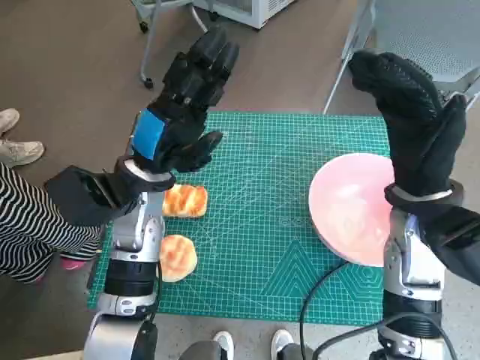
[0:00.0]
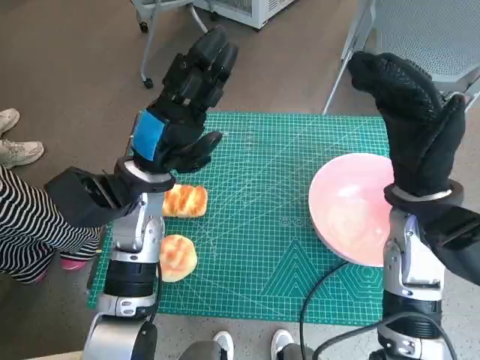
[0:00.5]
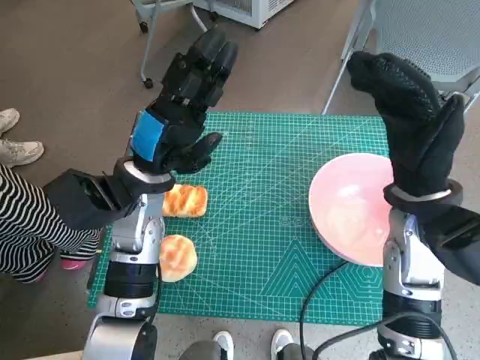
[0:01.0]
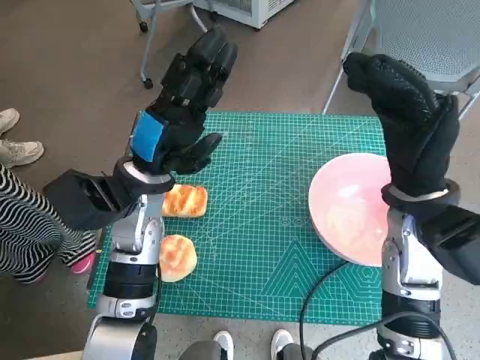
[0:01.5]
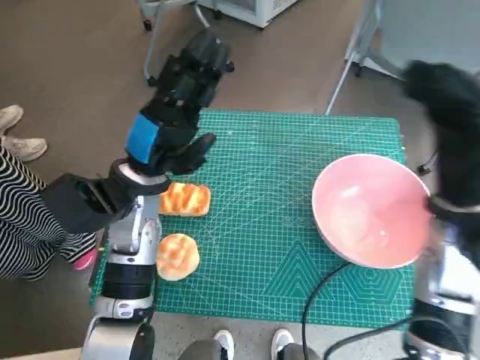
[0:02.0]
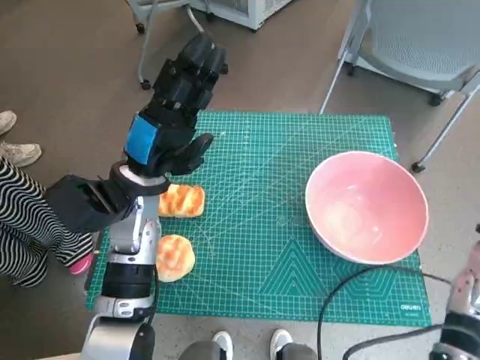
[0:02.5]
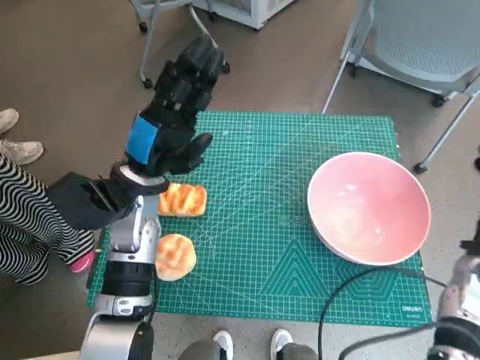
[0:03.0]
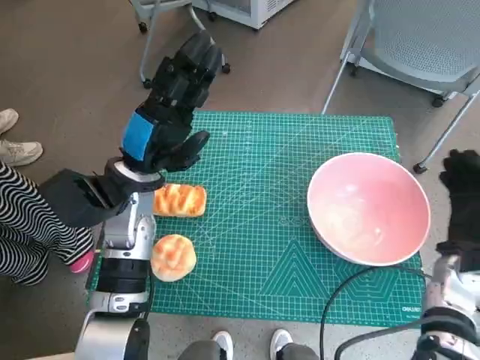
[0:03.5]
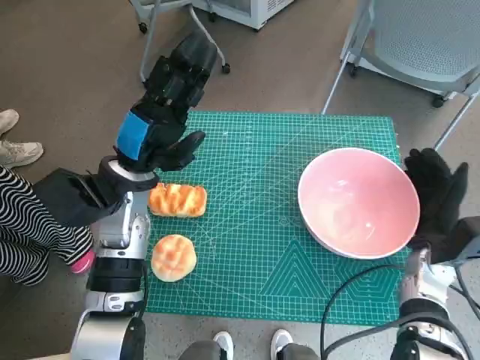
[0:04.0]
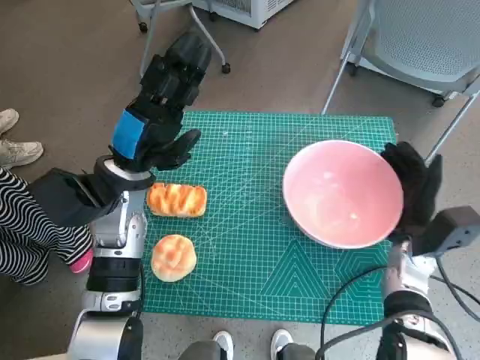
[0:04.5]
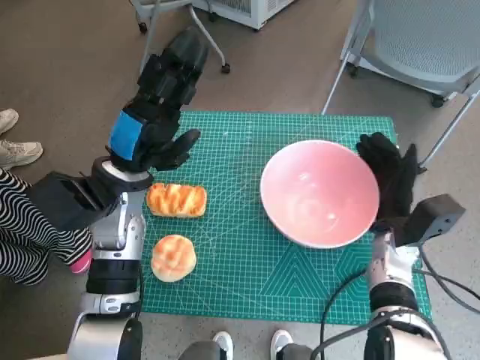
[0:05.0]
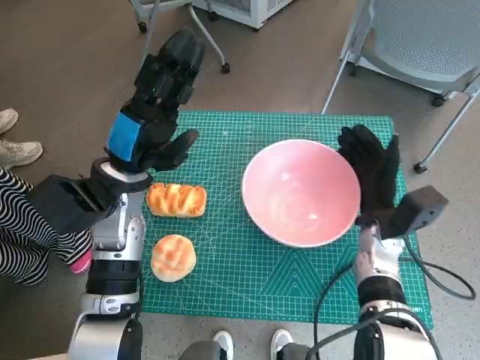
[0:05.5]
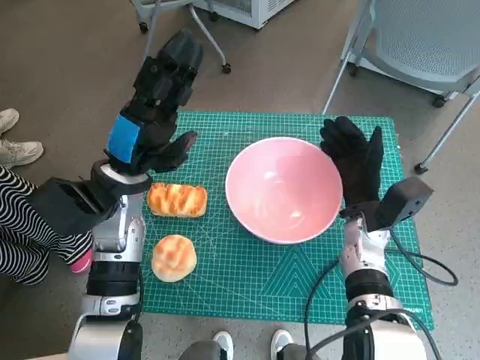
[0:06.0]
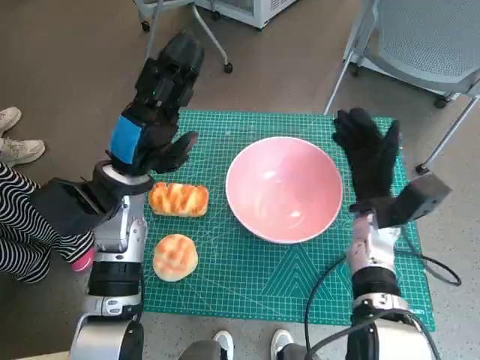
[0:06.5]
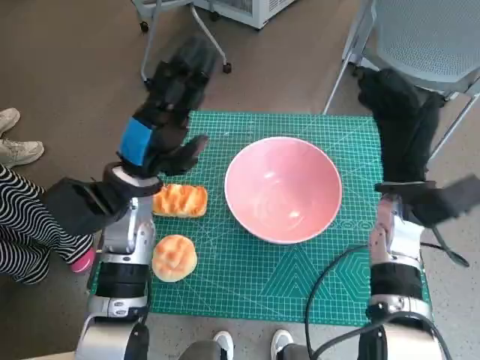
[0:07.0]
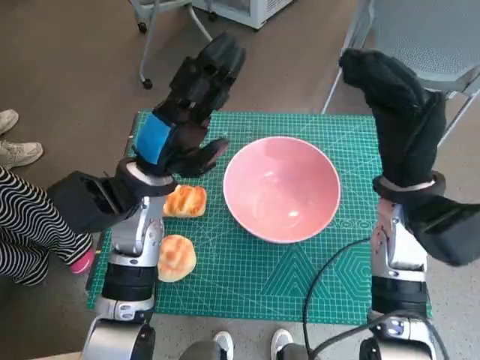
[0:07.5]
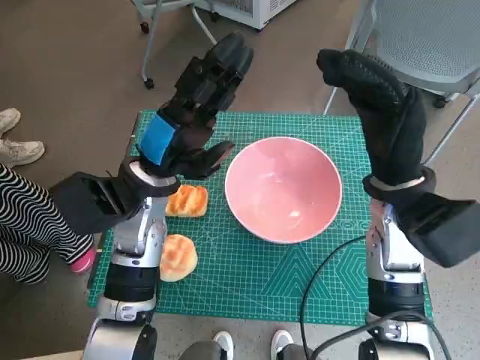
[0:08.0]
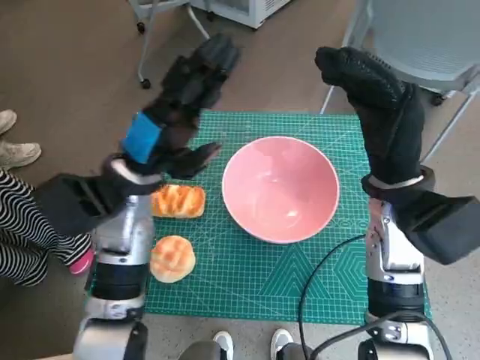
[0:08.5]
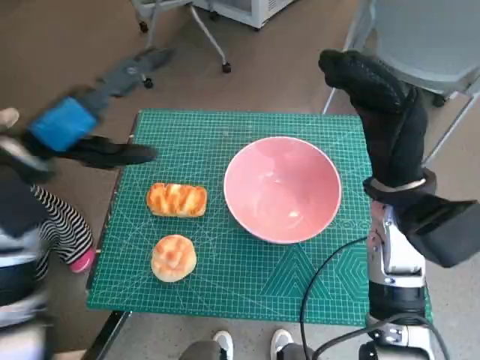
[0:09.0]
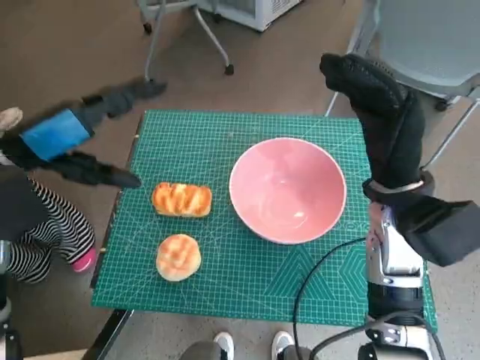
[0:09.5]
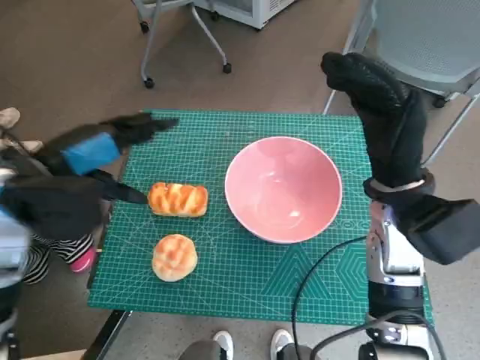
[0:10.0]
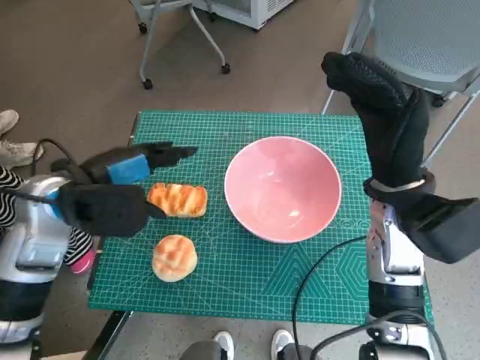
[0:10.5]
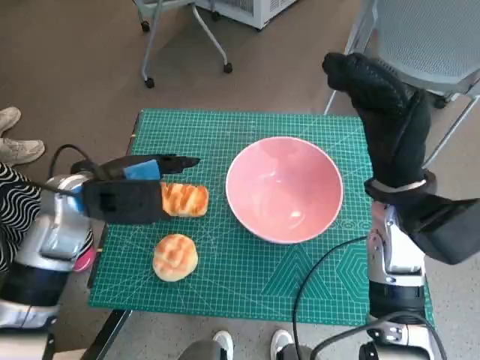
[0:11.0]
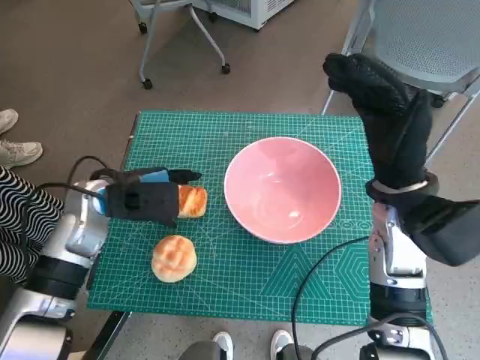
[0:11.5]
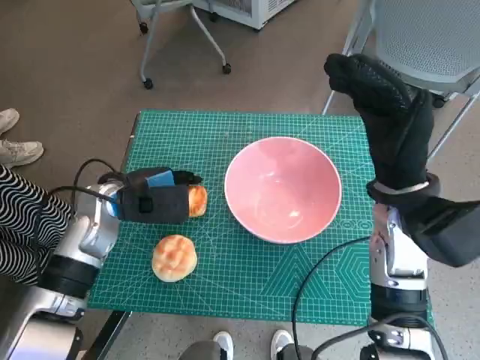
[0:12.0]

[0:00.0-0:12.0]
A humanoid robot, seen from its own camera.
Task of the whole recording: Push the bowl into the center of the table and put the bread into the bowl.
Step, 0:00.0 to 0:07.0: Move the pink bowl to the center of table with right hand.
0:02.0 to 0:04.0: The right hand travels downward by roughly 15 cm.
0:04.0 to 0:06.0: The right hand heads to the left, covering approximately 10 cm.
0:06.0 to 0:08.0: The right hand shifts some 15 cm upward.
0:08.0 to 0:10.0: The left hand is displaced to the left and upward by about 15 cm.
0:10.0 to 0:12.0: The left hand moves downward and forward, about 15 cm.

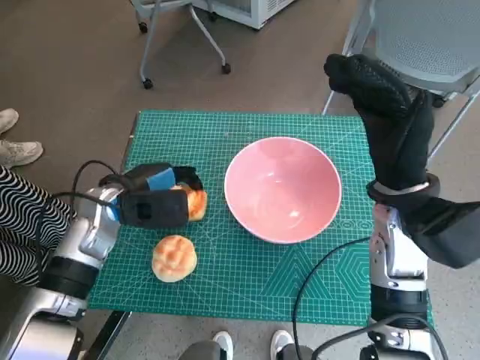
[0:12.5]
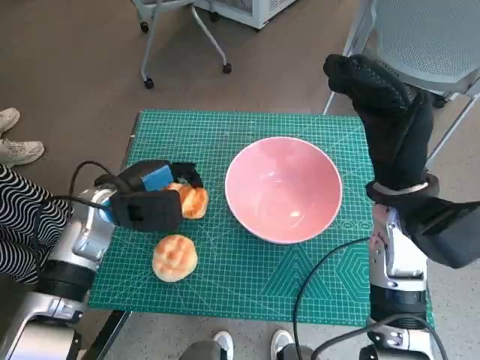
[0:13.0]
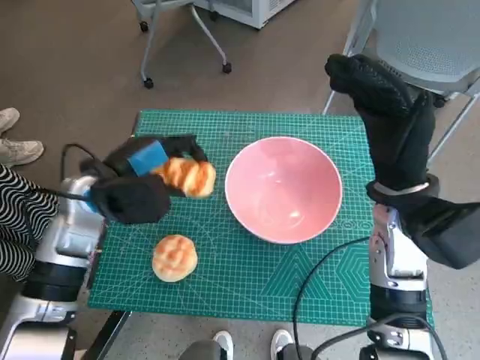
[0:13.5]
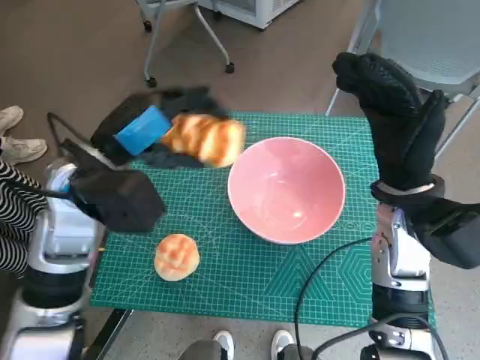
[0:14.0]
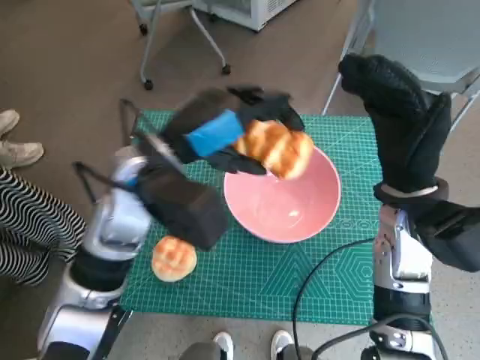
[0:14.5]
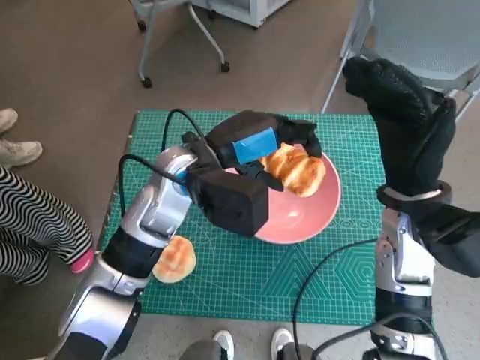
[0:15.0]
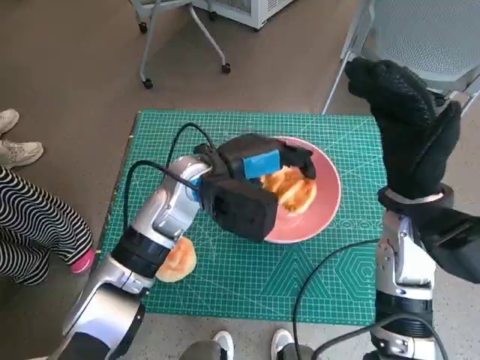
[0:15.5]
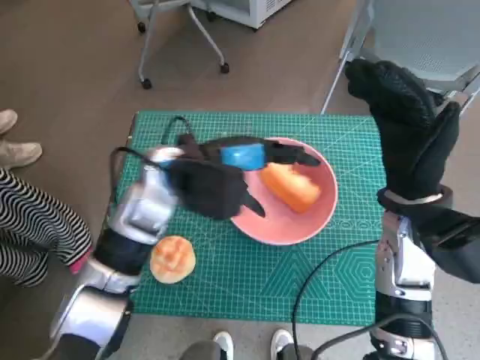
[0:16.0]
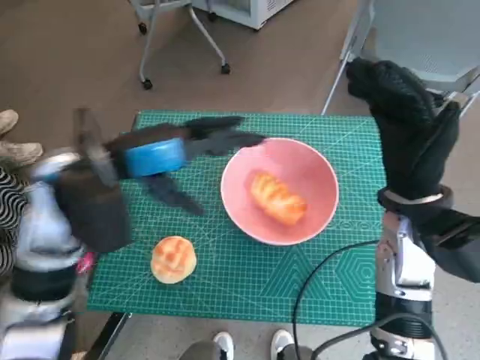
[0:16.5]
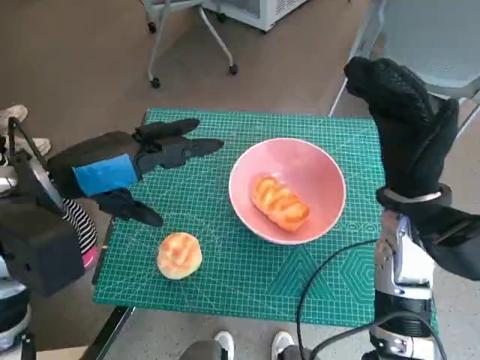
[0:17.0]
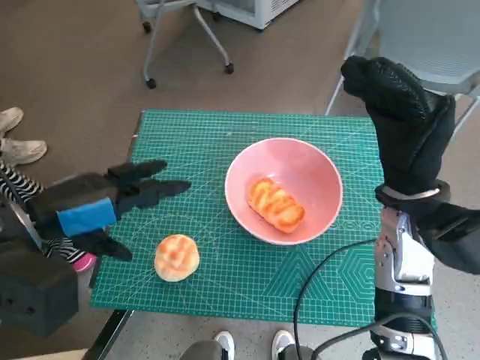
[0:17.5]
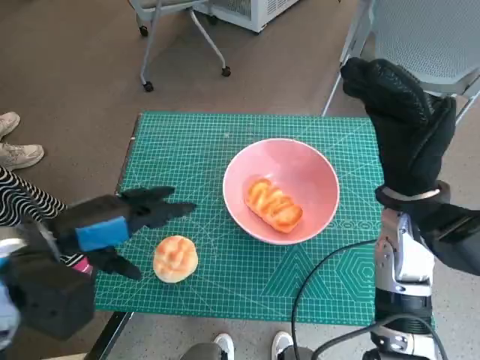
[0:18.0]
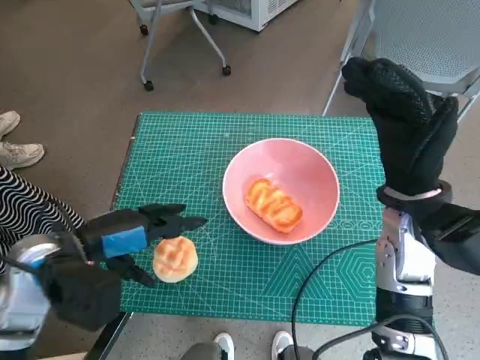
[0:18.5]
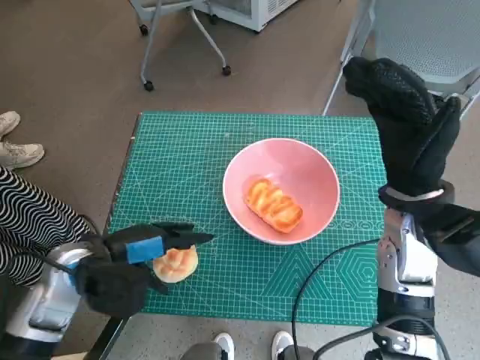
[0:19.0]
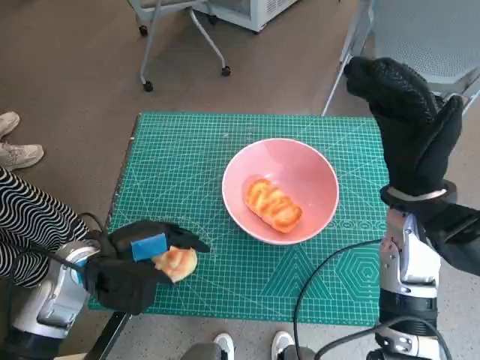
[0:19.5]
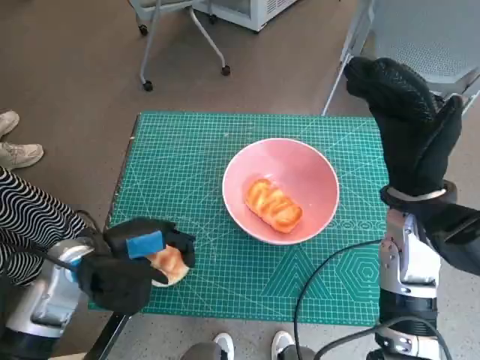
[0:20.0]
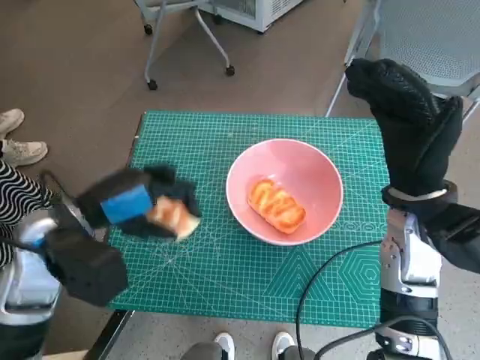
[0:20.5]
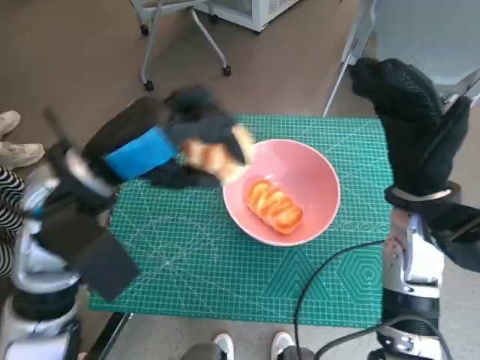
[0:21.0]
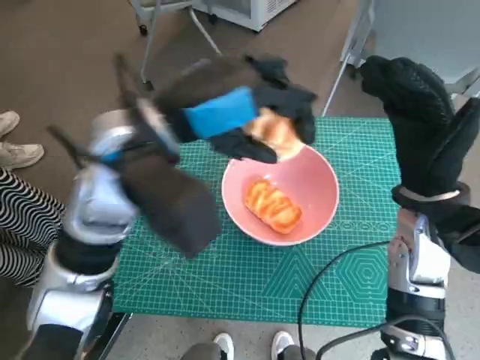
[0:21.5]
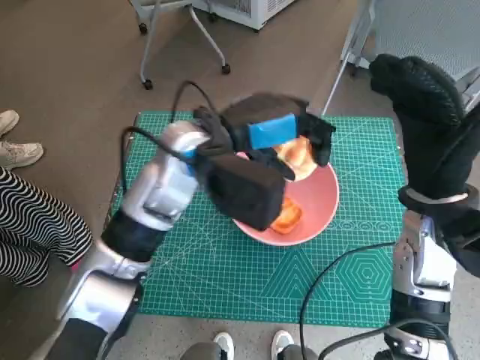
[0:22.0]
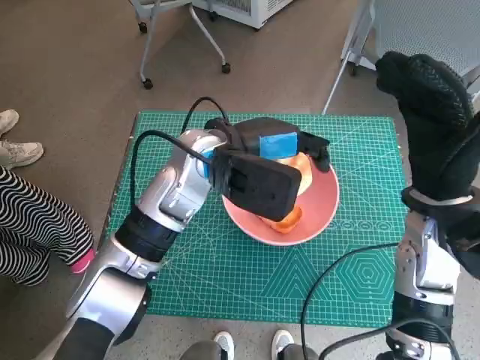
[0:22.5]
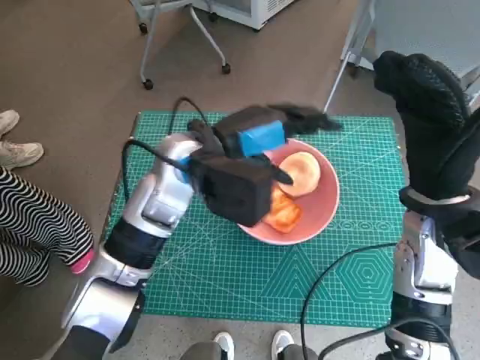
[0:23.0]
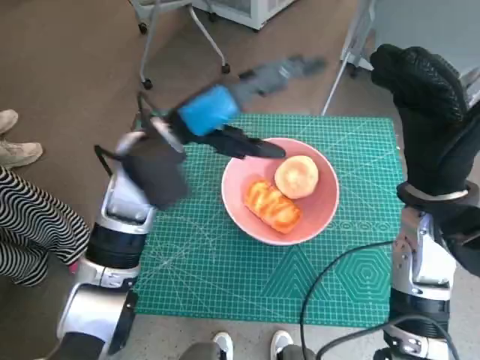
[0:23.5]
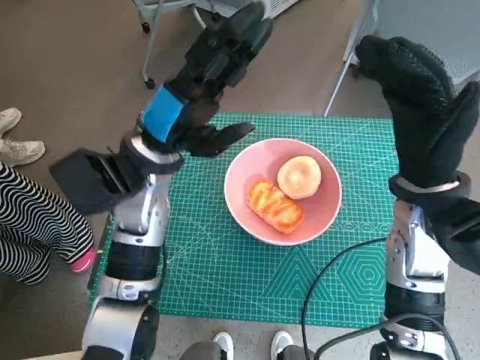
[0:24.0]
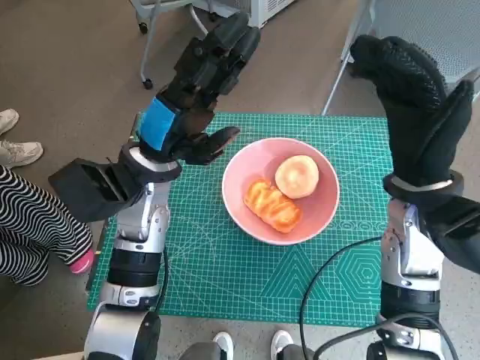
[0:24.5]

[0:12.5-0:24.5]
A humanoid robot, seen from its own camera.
Task of the whole recording: Push the bowl into the center of the table and put the bread into the bowl.
Step, 0:13.0 to 0:16.5: Place the long bread in pink bowl with left hand.
Step, 0:17.0 to 0:19.5: Grasp the round bread with left hand.
Step, 0:20.0 to 0:24.0: Place the round bread in pink bowl with left hand.
0:12.5 to 0:14.5: The left hand moves upward and to the right, some 15 cm.
0:14.5 to 0:16.5: The left hand moves to the left, some 5 cm.
0:16.5 to 0:18.5: The left hand is displaced downward, backward and to the left by approximately 10 cm.
0:20.5 to 0:22.5: The left hand goes some 20 cm to the right and forward.
0:22.5 to 0:24.5: The left hand goes roughly 10 cm to the left.

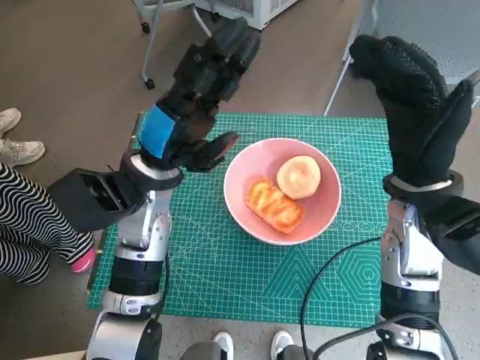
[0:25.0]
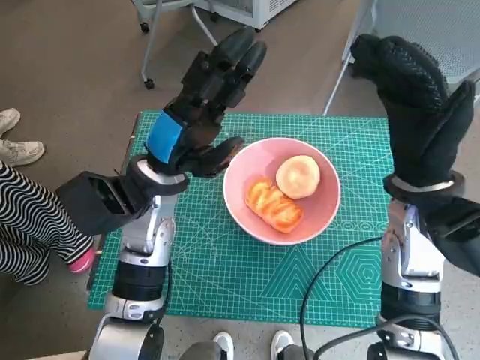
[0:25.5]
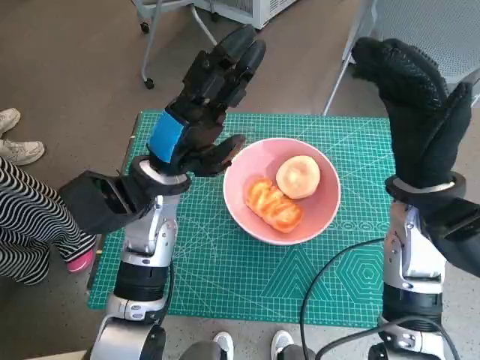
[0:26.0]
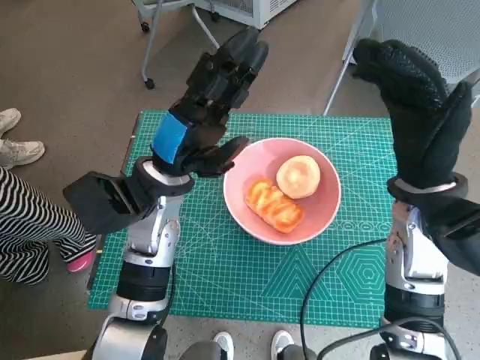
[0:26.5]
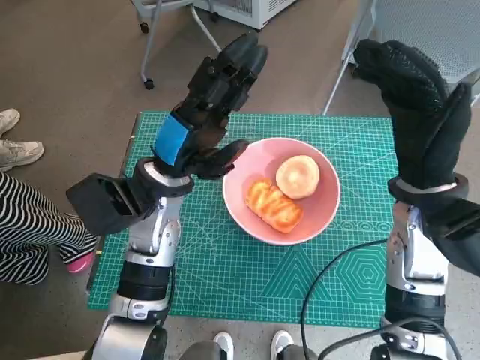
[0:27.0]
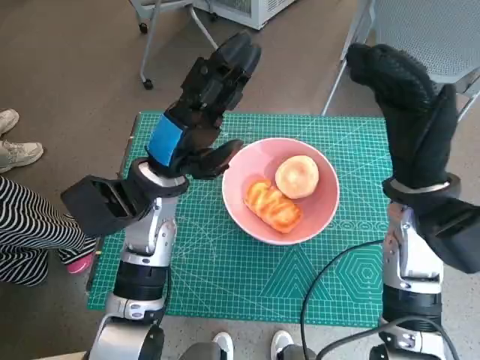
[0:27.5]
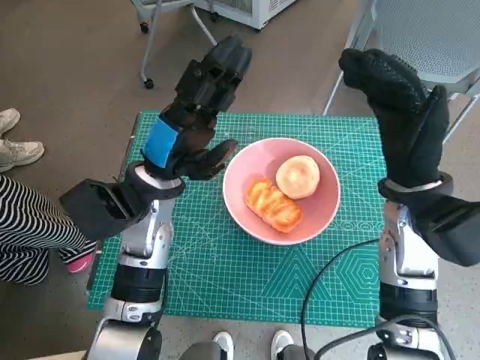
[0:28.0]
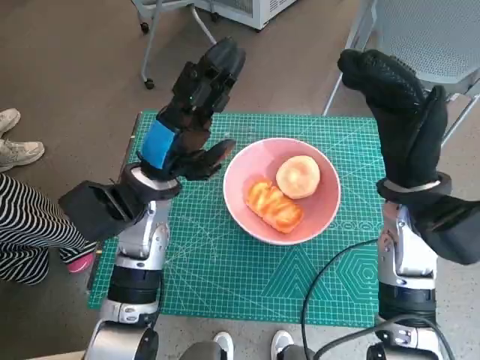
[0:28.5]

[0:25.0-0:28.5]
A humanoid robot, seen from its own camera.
Task of the whole recording: Push the bowl into the center of the table and put the bread into the bowl.
0:25.0 to 0:27.0: The hands stay close to where they were, moving slightly.
